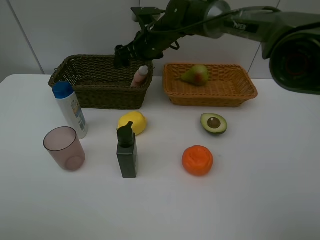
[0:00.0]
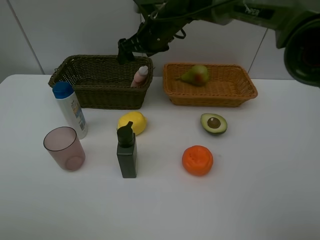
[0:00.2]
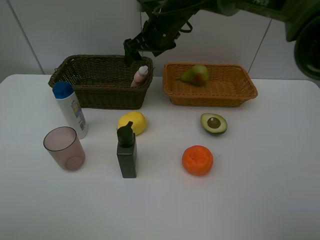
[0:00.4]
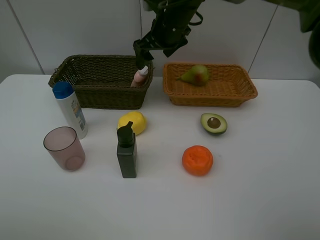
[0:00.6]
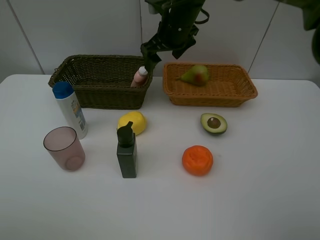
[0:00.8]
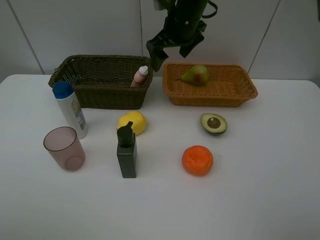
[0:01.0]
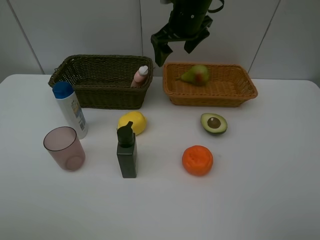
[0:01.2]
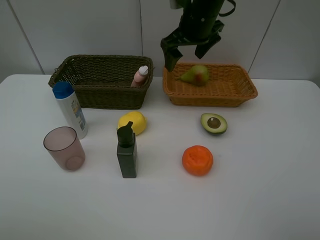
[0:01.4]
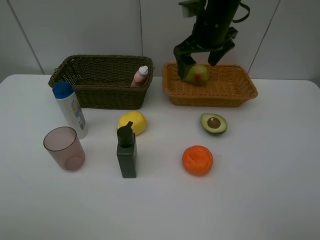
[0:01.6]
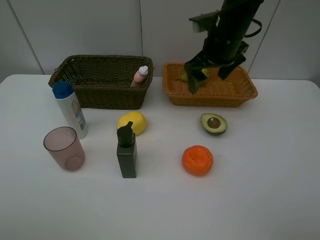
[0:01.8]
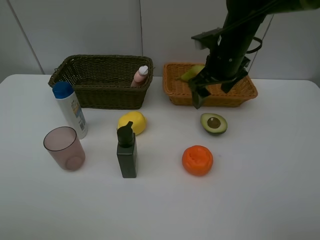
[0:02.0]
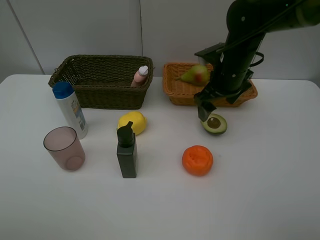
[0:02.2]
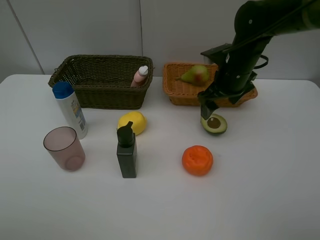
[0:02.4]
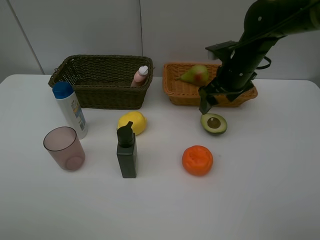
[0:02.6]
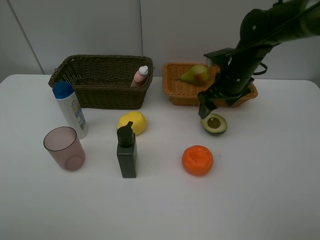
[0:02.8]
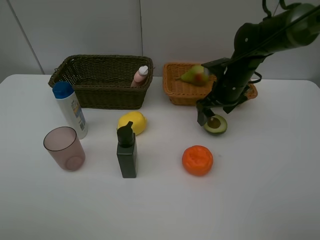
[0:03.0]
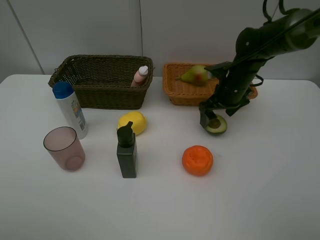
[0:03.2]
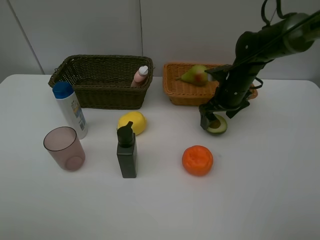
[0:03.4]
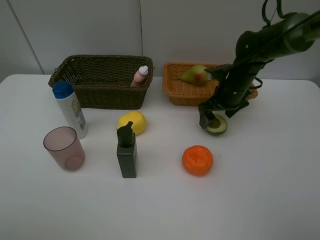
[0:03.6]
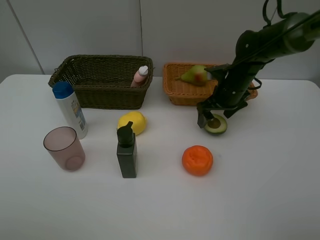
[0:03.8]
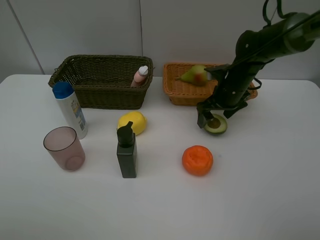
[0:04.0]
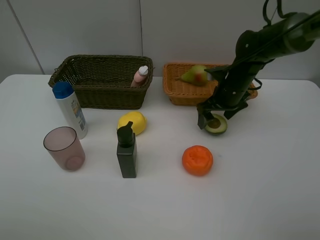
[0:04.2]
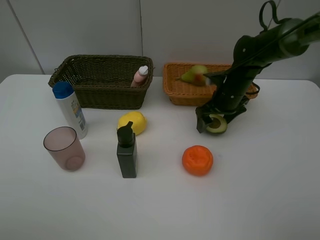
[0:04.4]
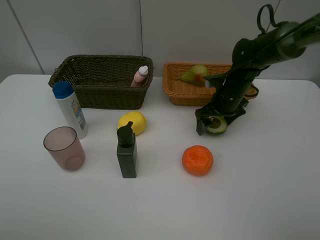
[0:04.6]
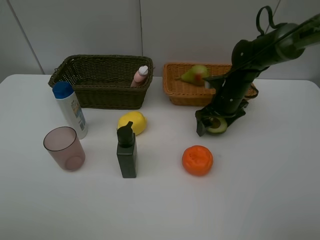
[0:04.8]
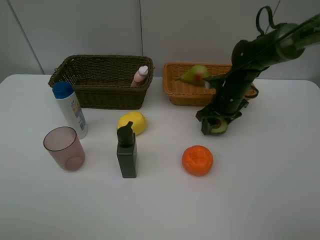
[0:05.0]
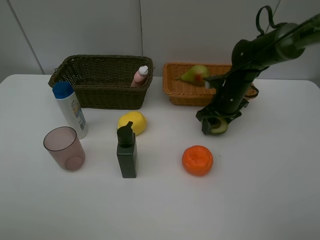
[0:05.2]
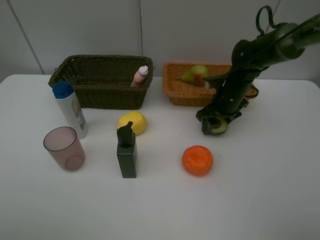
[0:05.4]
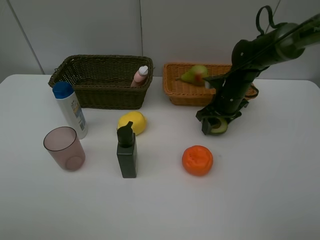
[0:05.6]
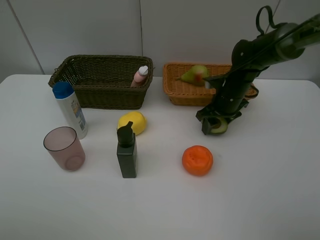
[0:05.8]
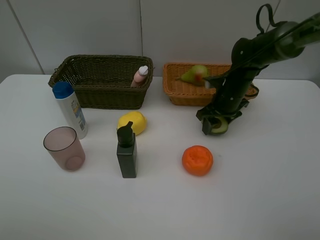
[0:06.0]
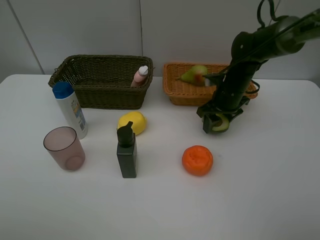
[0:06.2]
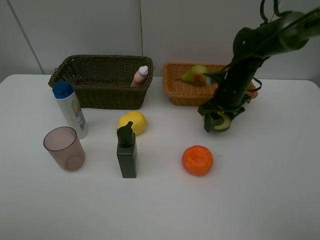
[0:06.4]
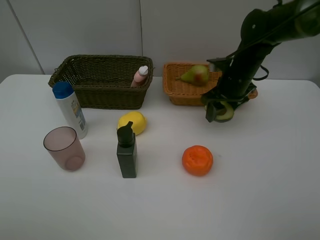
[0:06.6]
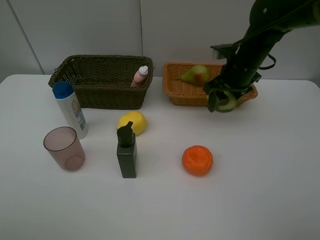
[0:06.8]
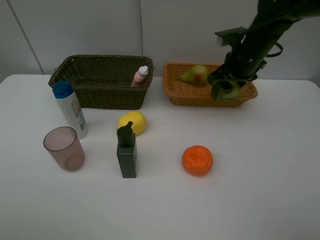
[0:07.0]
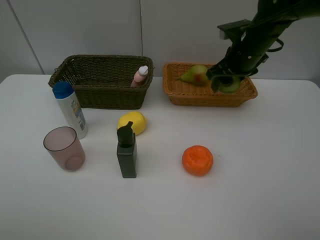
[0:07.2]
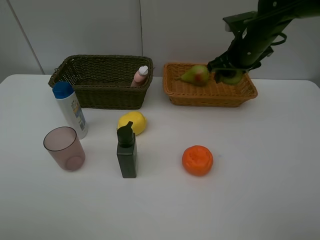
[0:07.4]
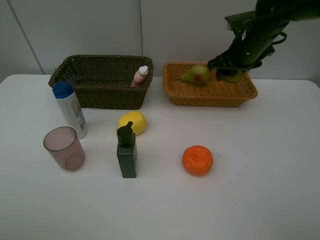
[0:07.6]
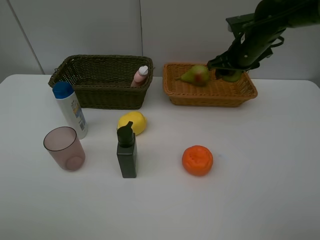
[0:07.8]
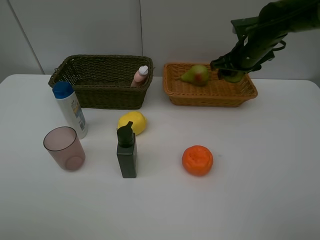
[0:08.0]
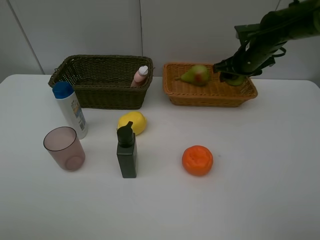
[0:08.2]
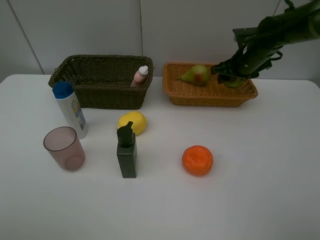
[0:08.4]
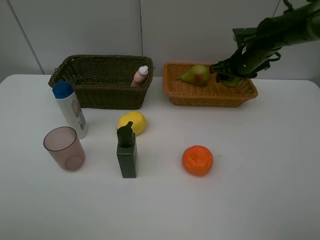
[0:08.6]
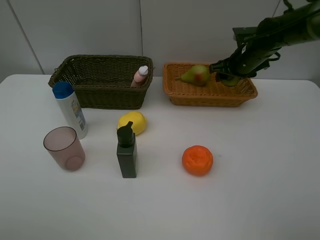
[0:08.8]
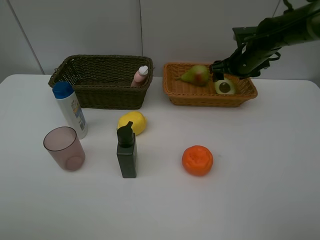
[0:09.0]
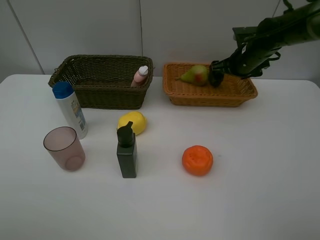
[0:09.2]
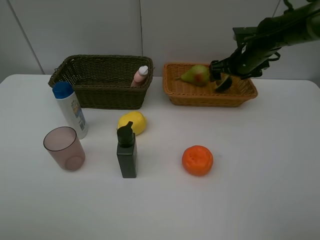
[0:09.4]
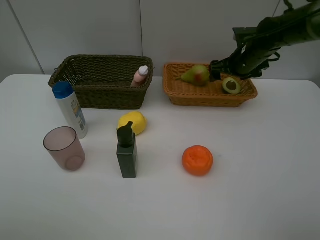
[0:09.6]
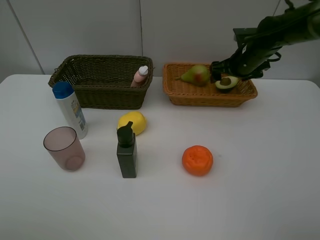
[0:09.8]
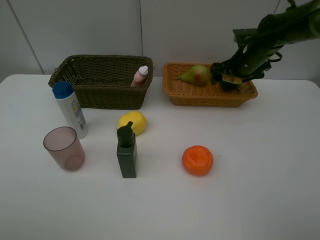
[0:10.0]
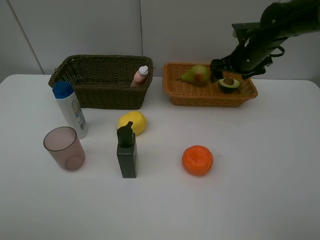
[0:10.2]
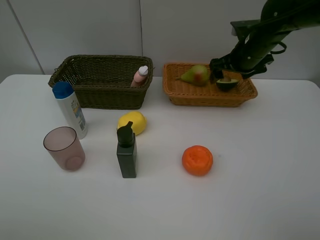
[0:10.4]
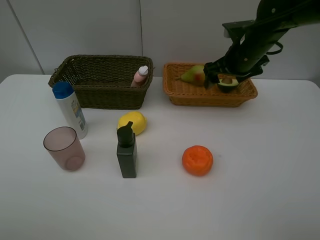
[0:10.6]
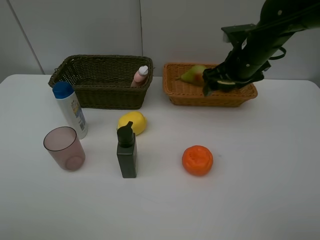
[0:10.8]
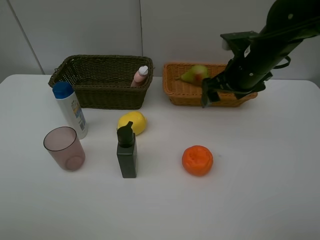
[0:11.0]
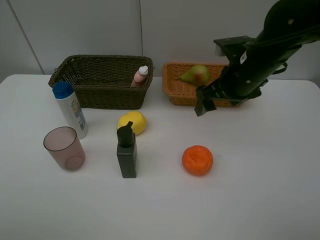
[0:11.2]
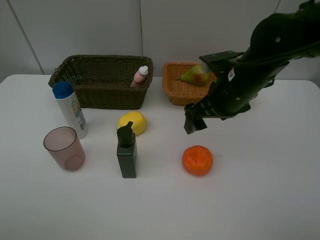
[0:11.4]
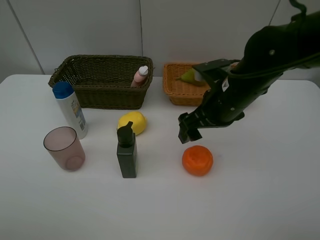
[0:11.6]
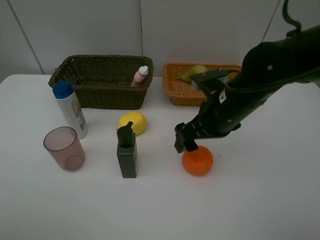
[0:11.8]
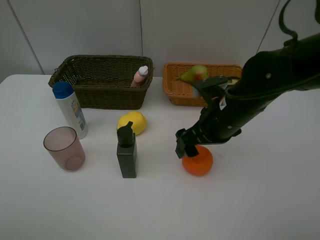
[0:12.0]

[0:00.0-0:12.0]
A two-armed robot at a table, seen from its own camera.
Task of the whole recording: Place multiple objects separately in different baskets.
Step, 0:00.2 to 0:06.4: Pick up the avocado with right gripper.
Step, 0:06.6 to 0:09.2: Place the avocado in the light basket with right gripper.
0:00.0 to 0:01.6: The right gripper travels to the right, upward and backward by approximately 15 cm.
0:01.6 to 0:03.0: The right gripper shifts about 15 cm downward and to the right.
0:03.0 to 0:04.4: The grippers make only small movements.
0:04.4 to 0:06.0: The right gripper closes its fingers.
0:06.0 to 0:07.6: The right gripper heads upward, covering roughly 10 cm.
0:07.6 to 0:09.0: The right gripper moves roughly 5 cm, and opens up.
0:09.0 to 0:10.4: There are only small adjustments of the grippers.
0:10.4 to 0:12.0: The right gripper heads backward and to the left, covering some 20 cm.

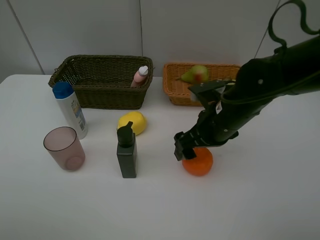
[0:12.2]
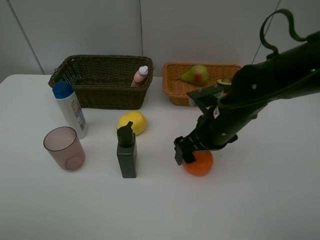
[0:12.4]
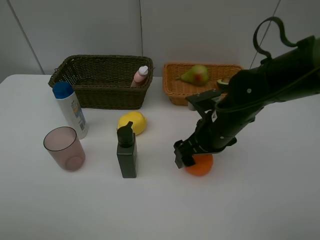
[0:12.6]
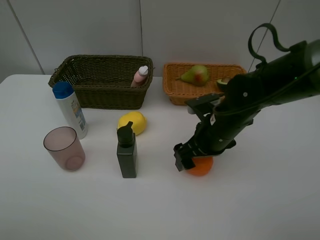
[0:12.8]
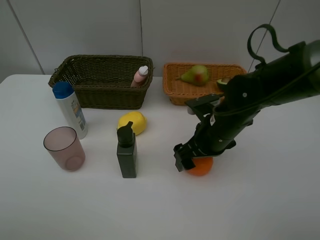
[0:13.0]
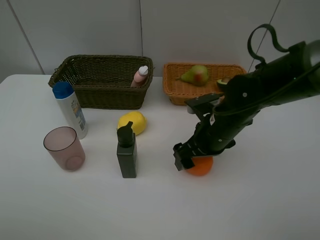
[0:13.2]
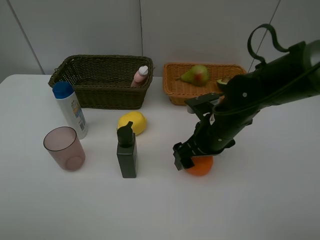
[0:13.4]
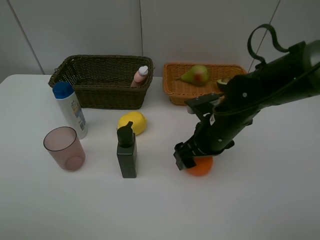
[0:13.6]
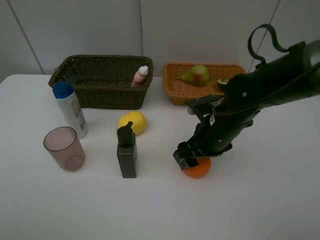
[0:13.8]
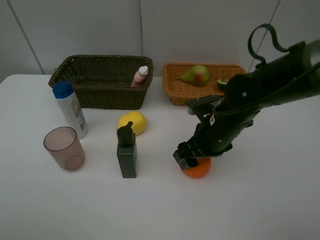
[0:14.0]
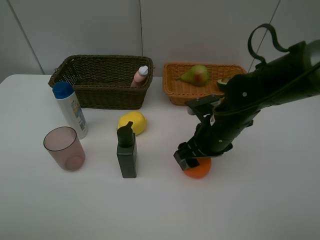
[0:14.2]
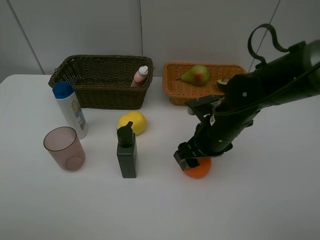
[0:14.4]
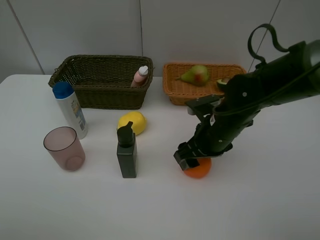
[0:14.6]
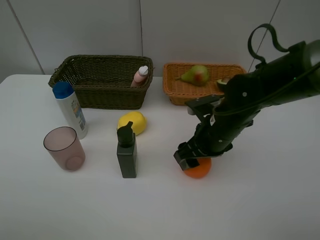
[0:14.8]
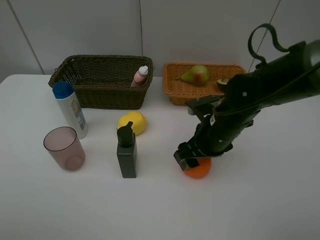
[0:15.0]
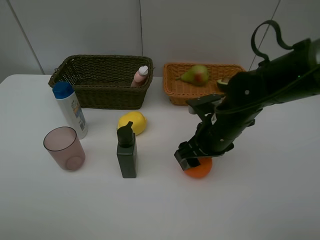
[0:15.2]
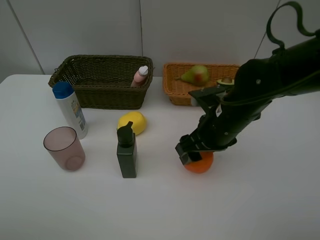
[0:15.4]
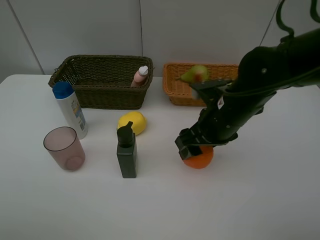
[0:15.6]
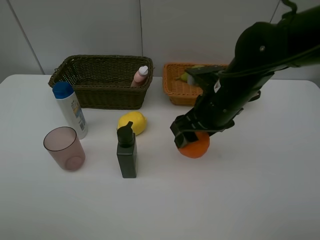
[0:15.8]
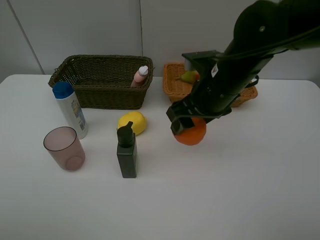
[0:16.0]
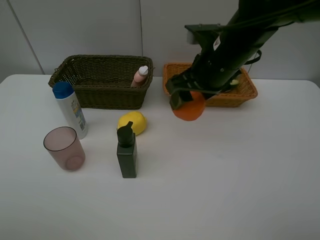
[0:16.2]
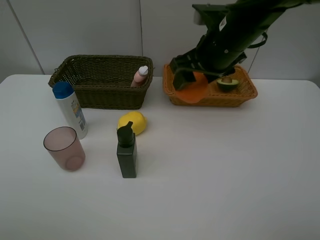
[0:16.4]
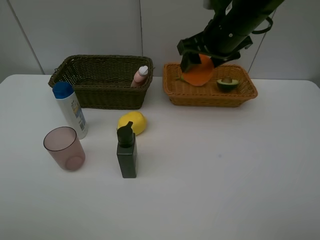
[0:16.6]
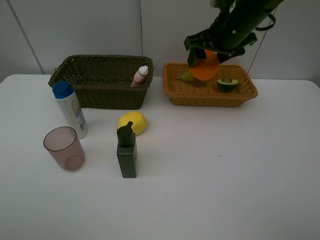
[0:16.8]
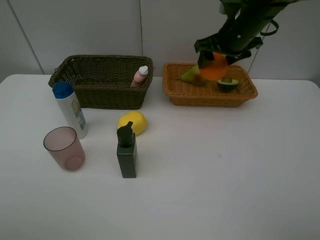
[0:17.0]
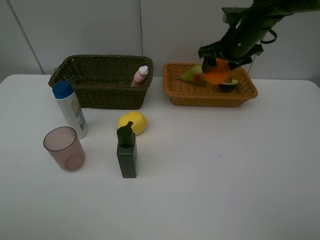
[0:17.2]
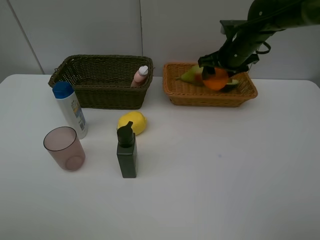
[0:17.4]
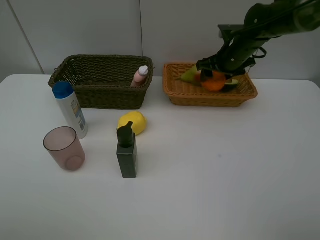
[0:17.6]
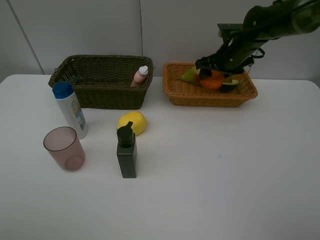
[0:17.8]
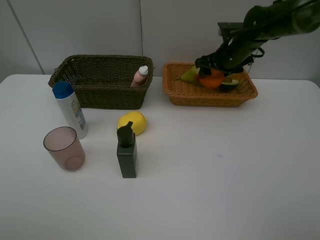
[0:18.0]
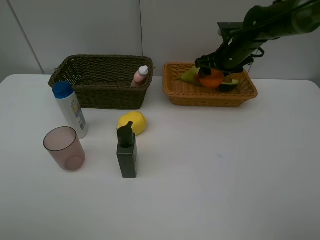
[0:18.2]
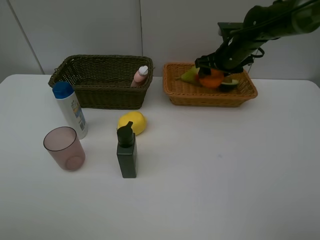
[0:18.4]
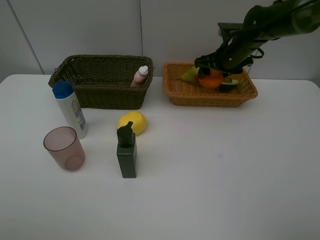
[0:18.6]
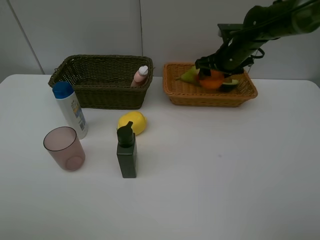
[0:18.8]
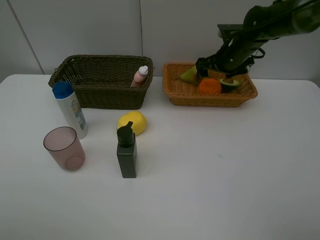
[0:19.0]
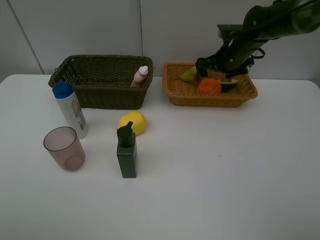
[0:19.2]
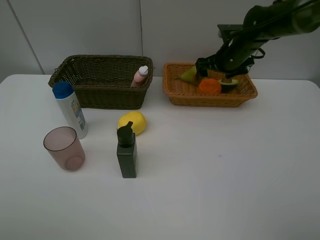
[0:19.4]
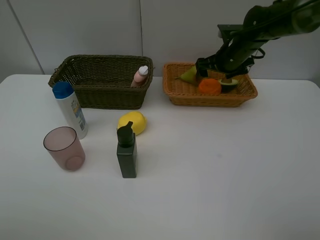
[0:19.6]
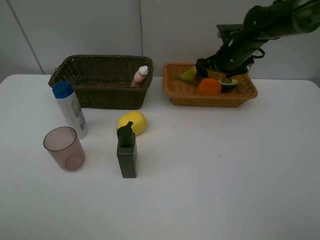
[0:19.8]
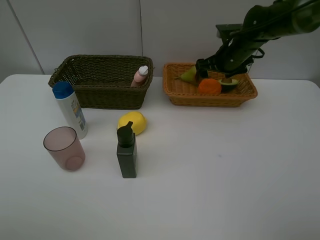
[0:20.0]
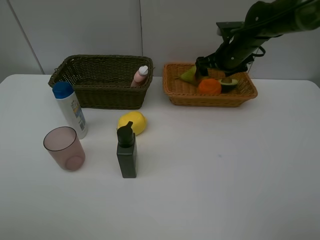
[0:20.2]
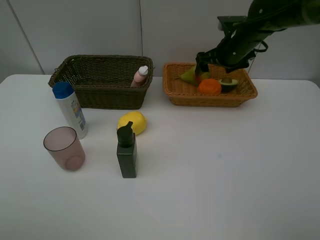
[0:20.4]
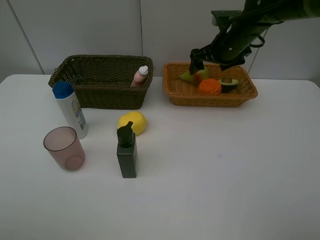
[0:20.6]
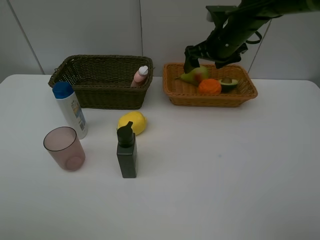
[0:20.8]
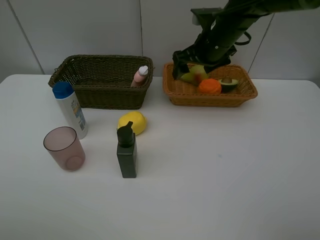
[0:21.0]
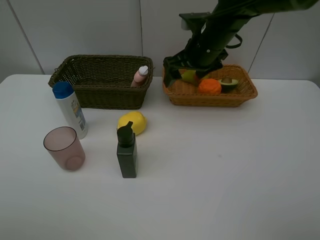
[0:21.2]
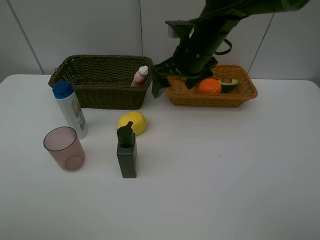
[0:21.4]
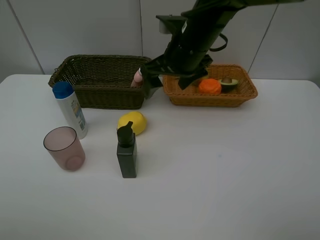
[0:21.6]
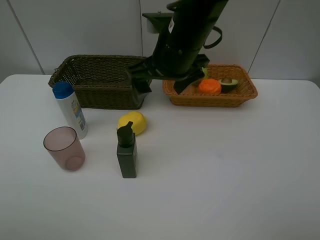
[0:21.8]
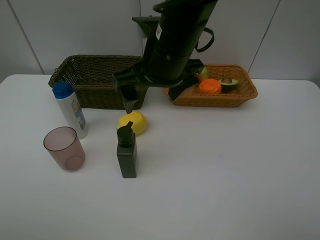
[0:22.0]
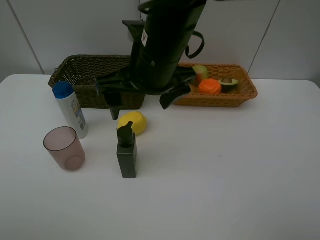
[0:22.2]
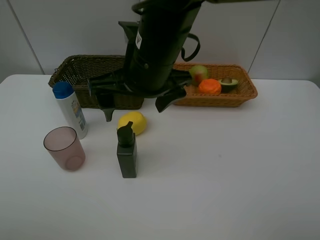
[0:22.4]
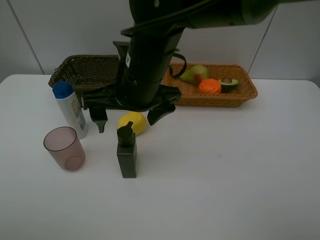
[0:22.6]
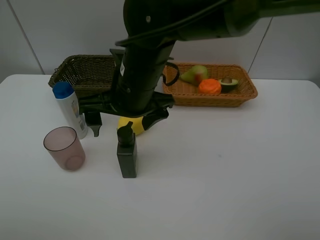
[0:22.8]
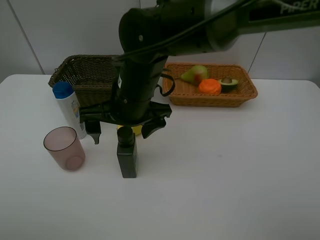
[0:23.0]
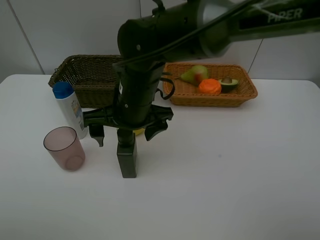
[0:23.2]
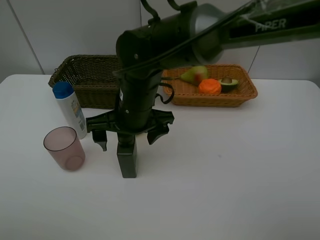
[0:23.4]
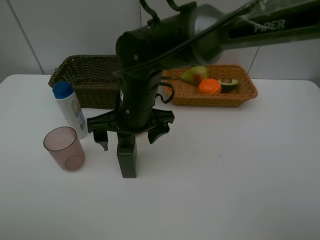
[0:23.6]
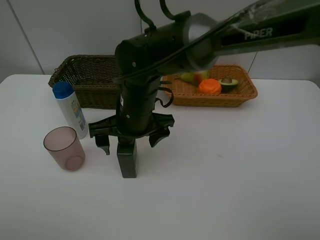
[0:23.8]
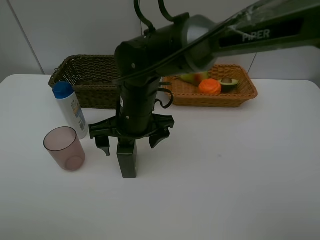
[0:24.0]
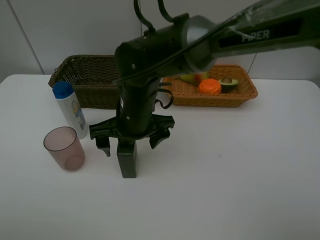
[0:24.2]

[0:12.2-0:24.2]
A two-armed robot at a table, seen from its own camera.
Task of the whole recording: Place multiple objects separately in different baskets.
Step, 0:12.2 to 0:15.4: Pick up the orange with right gripper.
Step, 0:15.6 to 0:20.2: Place the orange in the light basket with right gripper.
0:12.2 to 0:13.8: The right gripper closes its fingers.
0:13.8 to 0:15.2: Neither gripper changes place.
0:15.2 to 0:16.6: The right gripper travels upward and forward by some 20 cm.
0:16.6 to 0:18.2: The right gripper heads forward, downward and to the right, covering some 15 cm.
0:19.8 to 0:21.2: The right gripper shifts about 10 cm to the left and backward.
0:21.2 to 0:22.6: The right gripper moves backward and to the left, approximately 20 cm.
0:22.6 to 0:24.2: The right gripper moves downward, approximately 5 cm.
